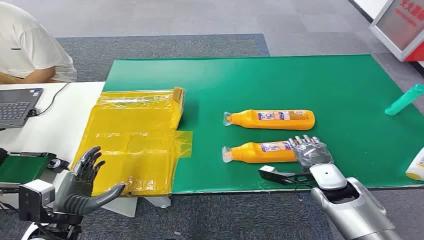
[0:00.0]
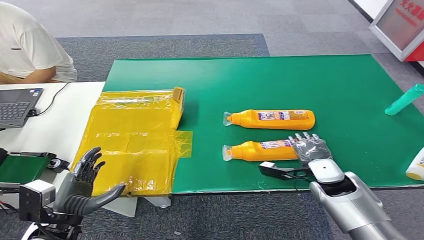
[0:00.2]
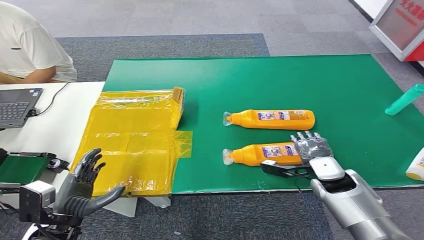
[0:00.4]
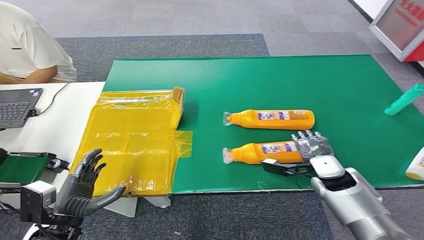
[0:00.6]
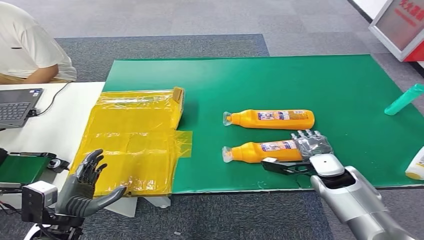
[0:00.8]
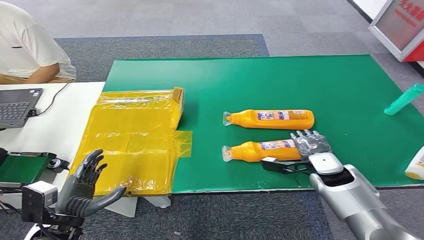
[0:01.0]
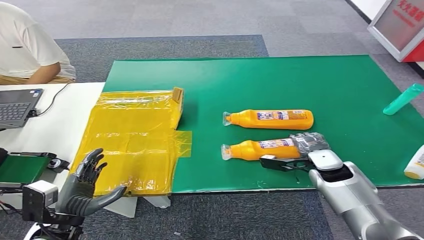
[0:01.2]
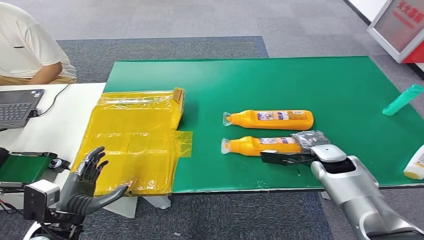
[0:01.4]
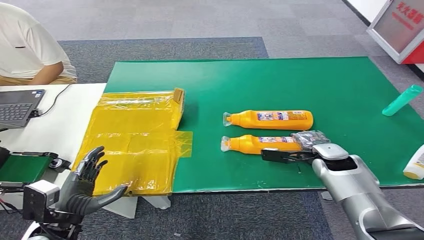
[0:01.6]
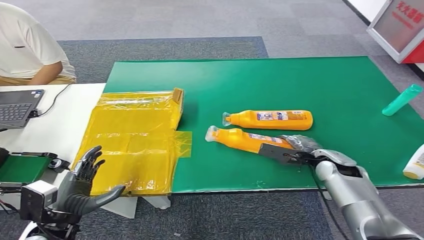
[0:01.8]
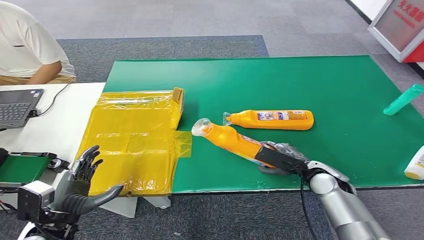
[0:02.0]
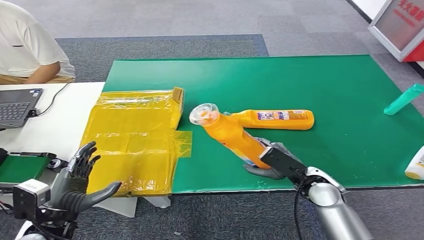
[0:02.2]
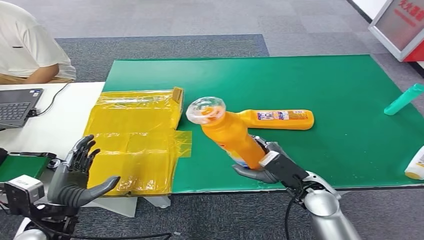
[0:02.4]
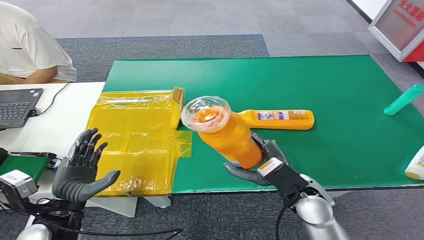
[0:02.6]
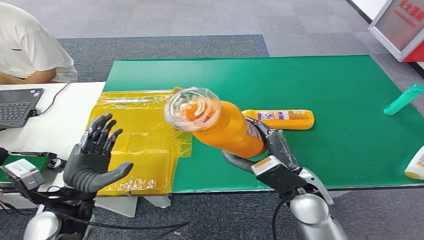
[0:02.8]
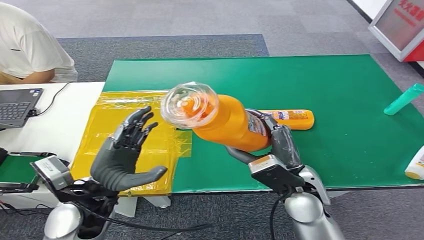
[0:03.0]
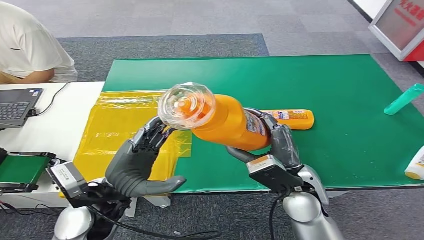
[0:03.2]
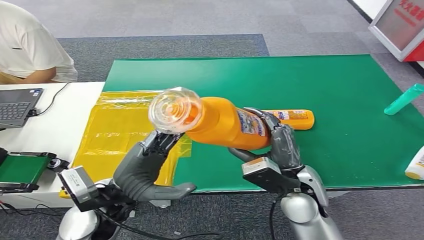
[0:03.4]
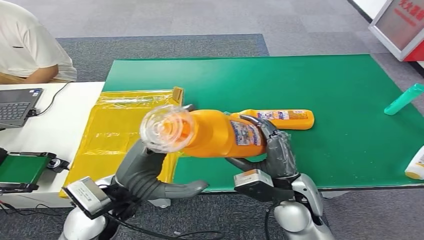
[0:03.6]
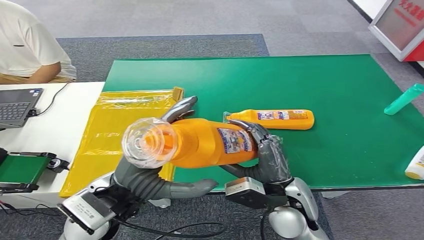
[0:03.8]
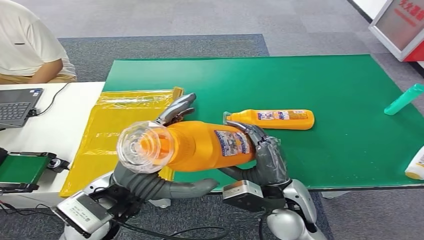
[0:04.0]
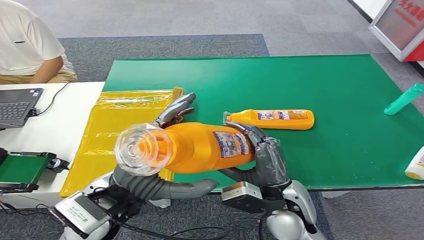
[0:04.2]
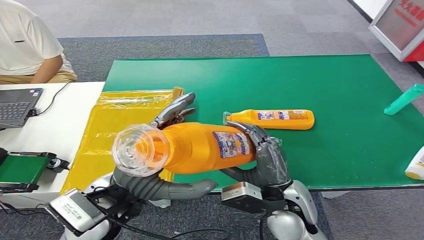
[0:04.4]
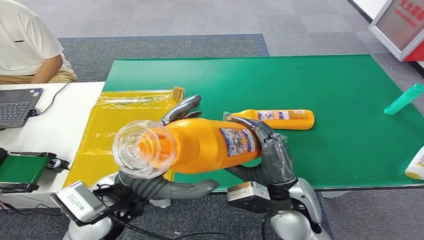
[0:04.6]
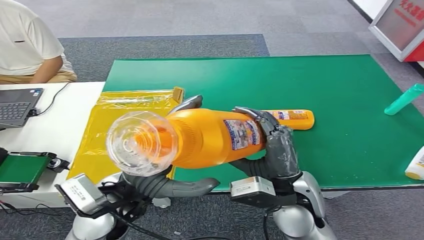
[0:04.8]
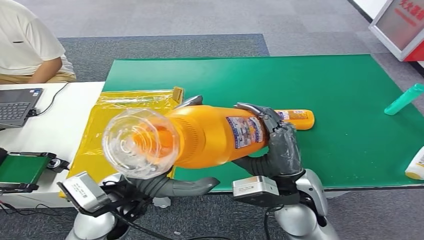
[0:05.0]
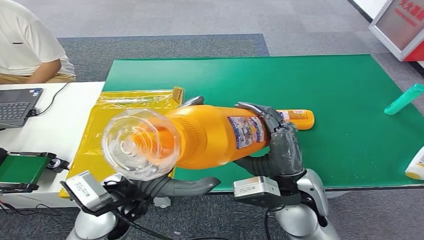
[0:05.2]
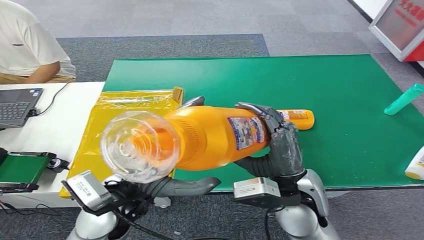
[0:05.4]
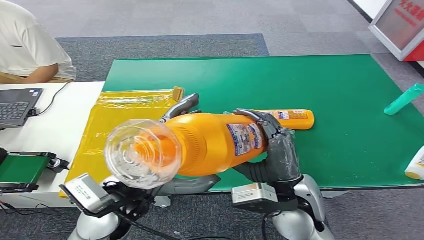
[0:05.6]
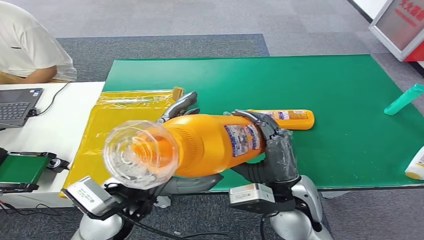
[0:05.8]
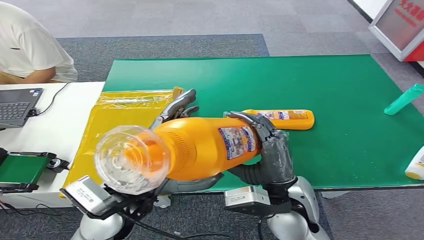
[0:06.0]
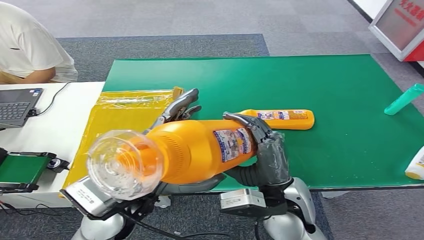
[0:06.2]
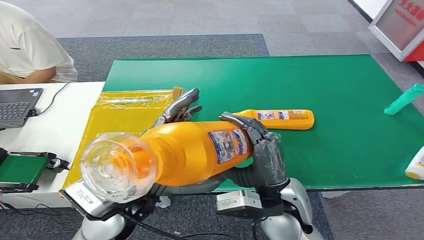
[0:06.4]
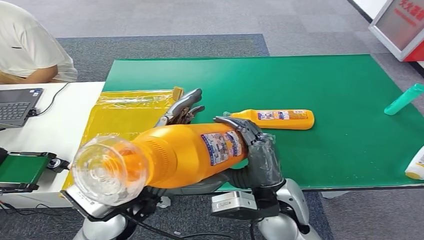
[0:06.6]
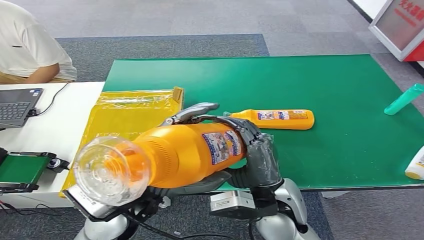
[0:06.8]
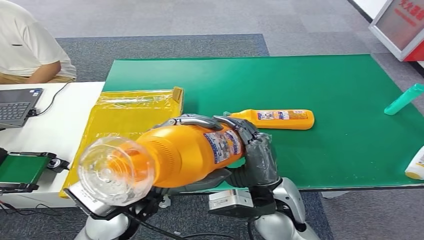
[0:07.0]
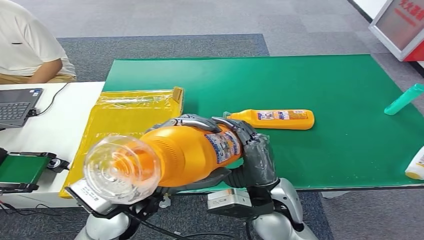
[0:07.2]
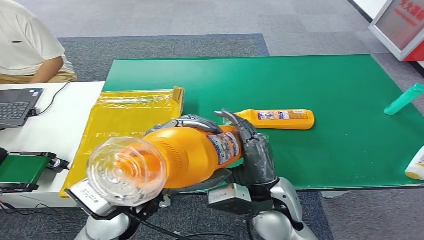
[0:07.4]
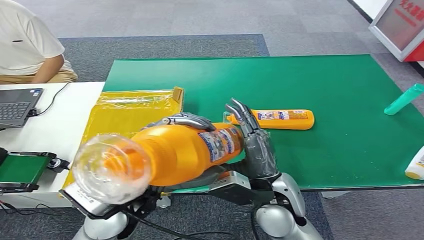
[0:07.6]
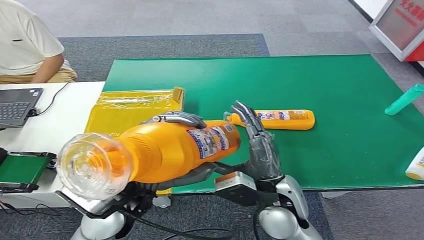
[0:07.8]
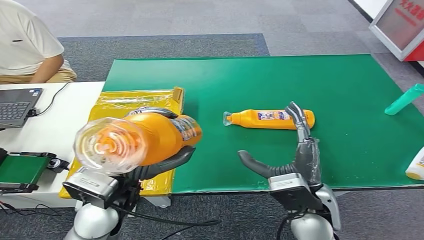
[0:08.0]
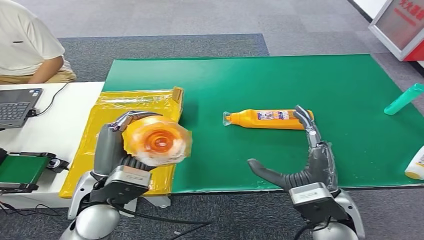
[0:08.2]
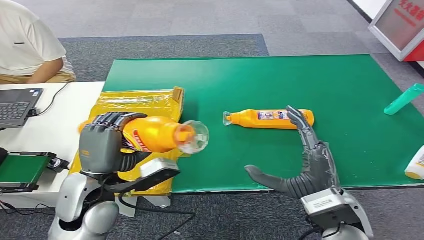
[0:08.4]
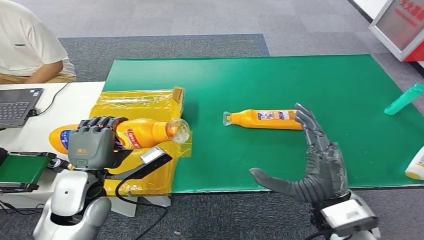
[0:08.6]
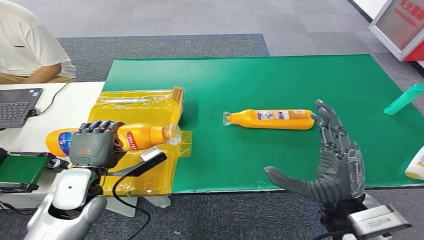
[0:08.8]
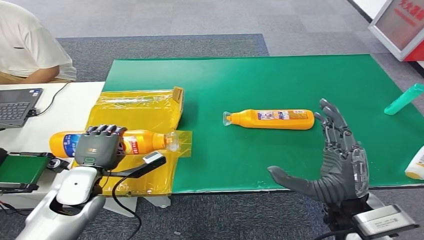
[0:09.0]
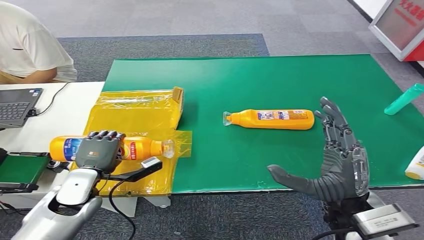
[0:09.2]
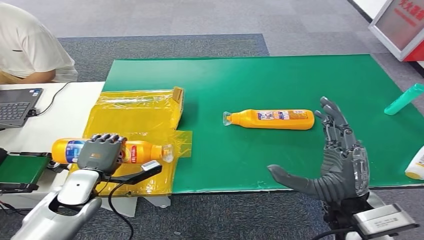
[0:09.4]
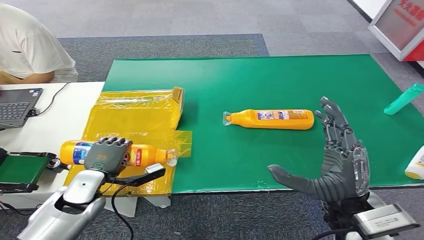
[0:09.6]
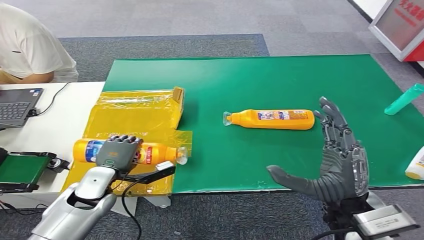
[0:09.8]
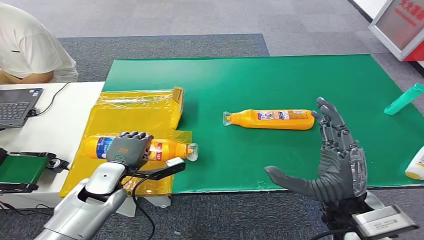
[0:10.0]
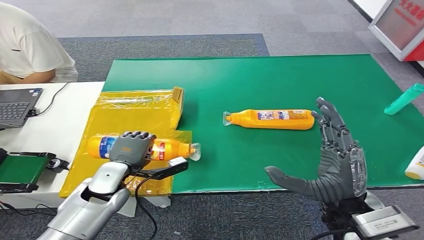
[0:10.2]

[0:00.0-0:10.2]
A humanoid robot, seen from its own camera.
Step, 0:00.0 to 0:02.6: Pick up the bottle from the table.
Step, 0:06.2 to 0:10.2: Turn the bottle to the front side.
0:04.4 to 0:07.2: The hands make only small movements.
0:08.8 to 0:10.2: The left hand shifts some 5 cm downward.
